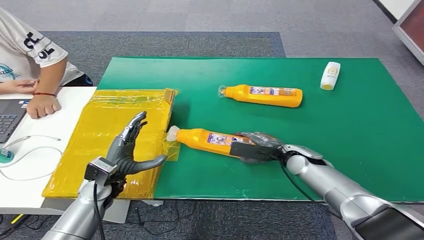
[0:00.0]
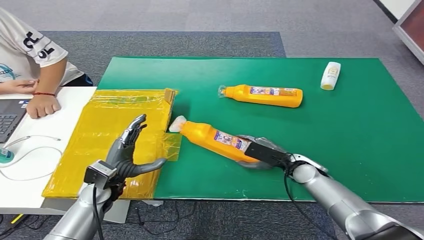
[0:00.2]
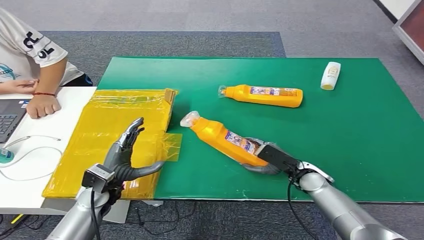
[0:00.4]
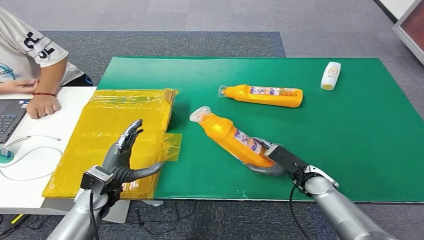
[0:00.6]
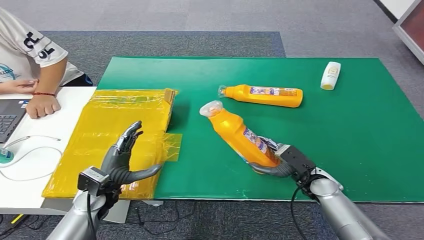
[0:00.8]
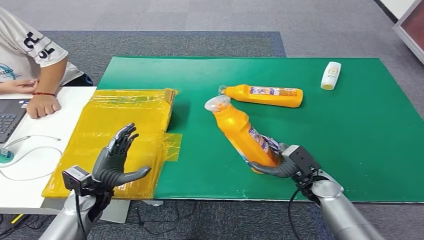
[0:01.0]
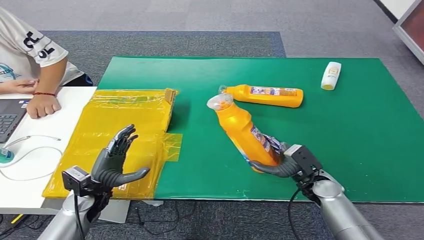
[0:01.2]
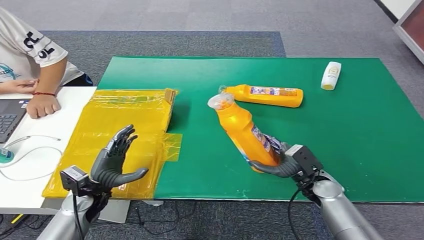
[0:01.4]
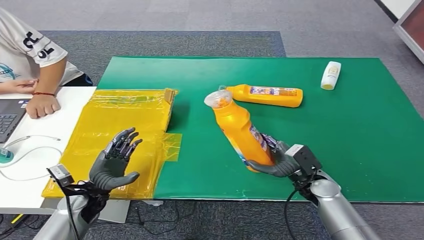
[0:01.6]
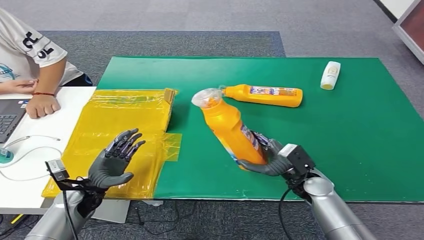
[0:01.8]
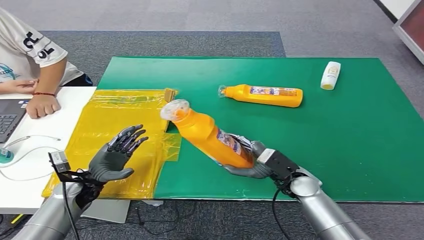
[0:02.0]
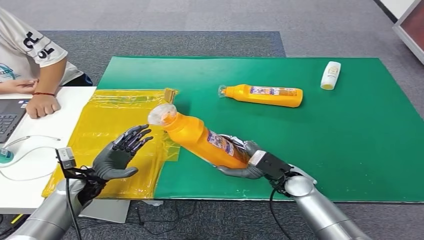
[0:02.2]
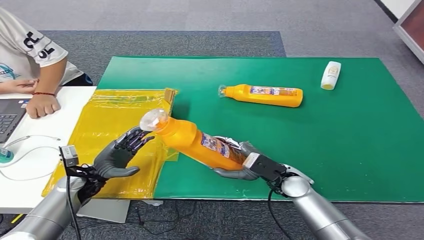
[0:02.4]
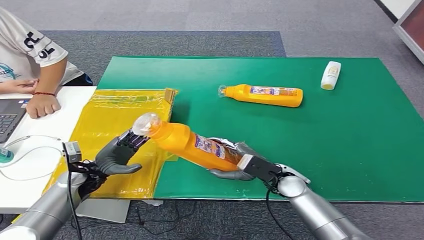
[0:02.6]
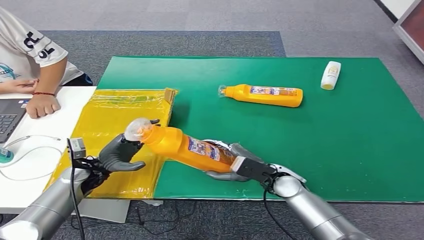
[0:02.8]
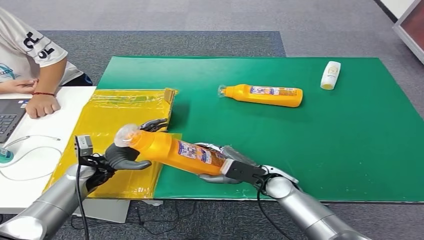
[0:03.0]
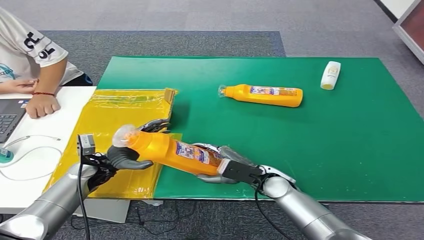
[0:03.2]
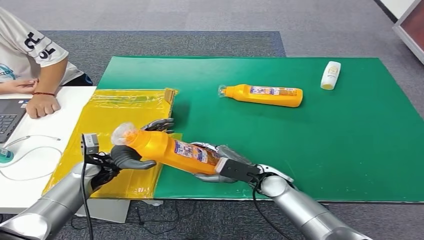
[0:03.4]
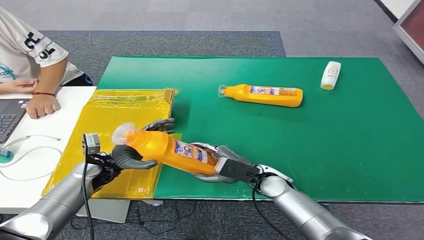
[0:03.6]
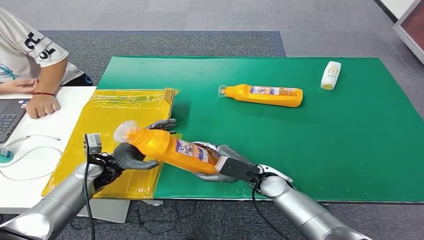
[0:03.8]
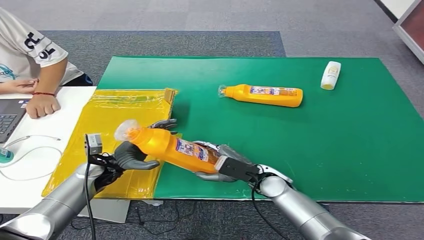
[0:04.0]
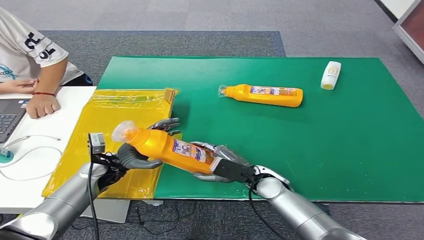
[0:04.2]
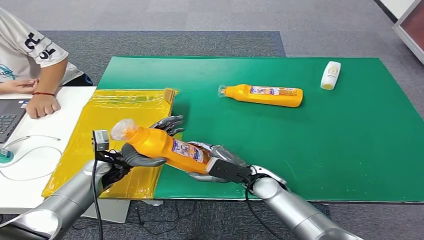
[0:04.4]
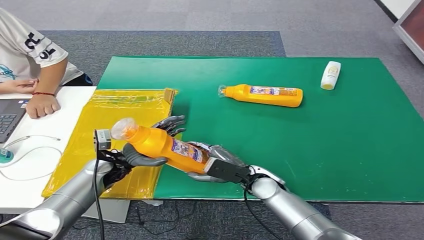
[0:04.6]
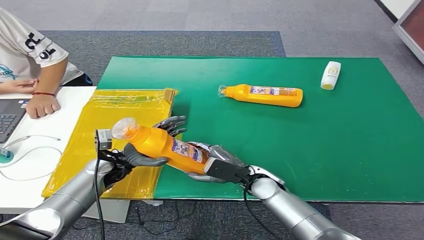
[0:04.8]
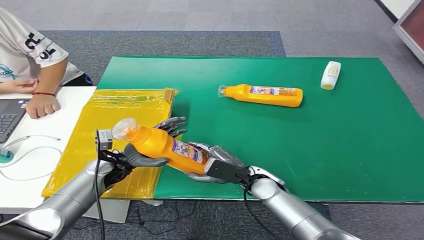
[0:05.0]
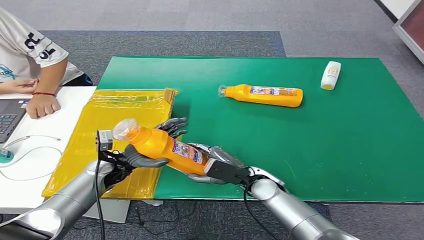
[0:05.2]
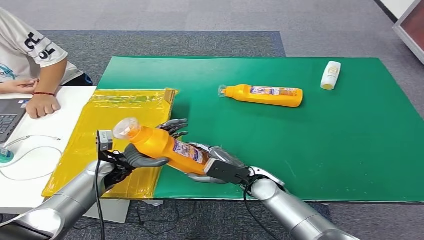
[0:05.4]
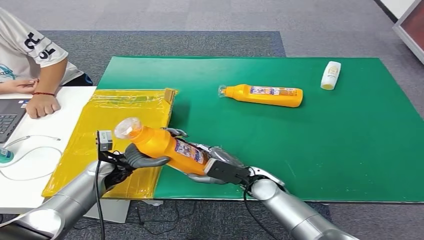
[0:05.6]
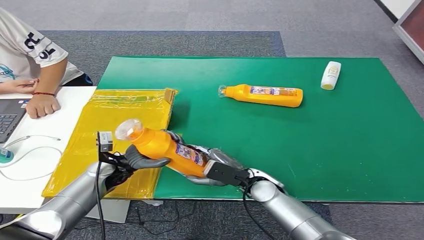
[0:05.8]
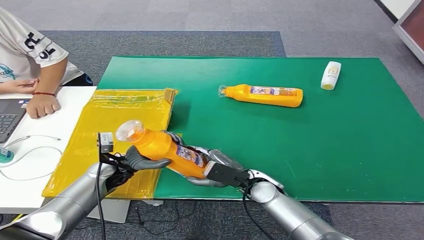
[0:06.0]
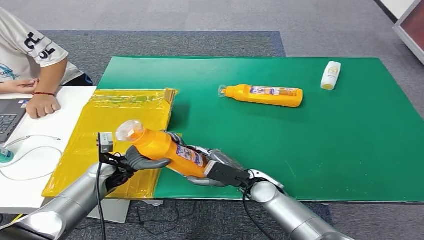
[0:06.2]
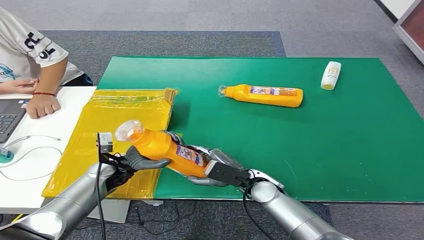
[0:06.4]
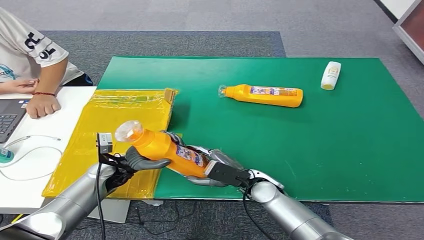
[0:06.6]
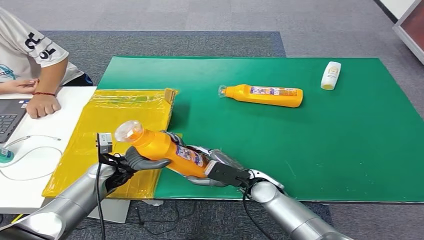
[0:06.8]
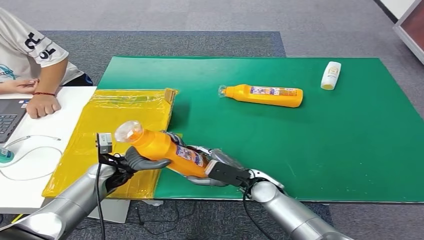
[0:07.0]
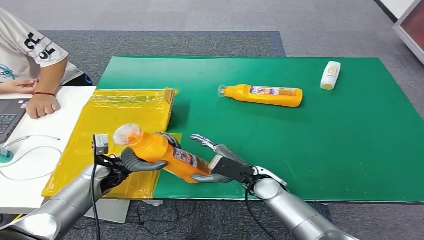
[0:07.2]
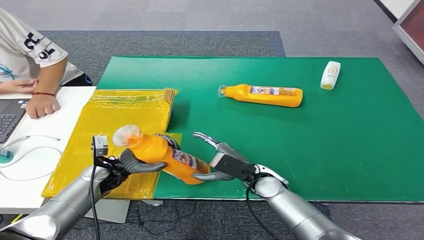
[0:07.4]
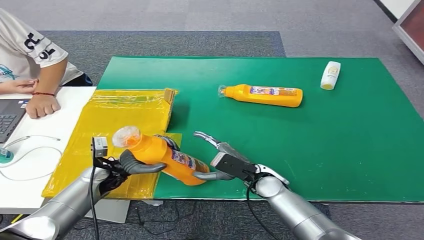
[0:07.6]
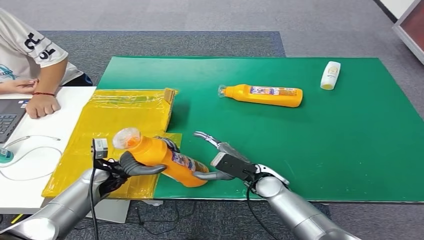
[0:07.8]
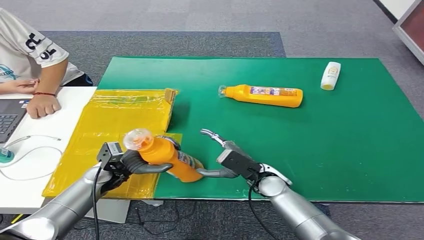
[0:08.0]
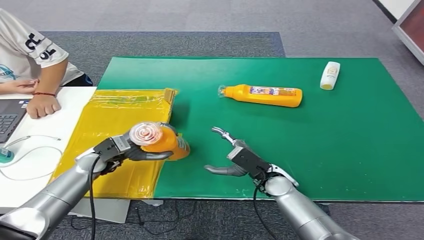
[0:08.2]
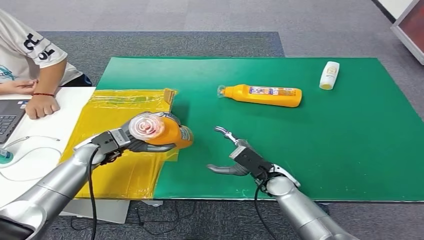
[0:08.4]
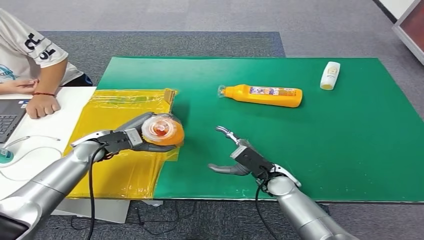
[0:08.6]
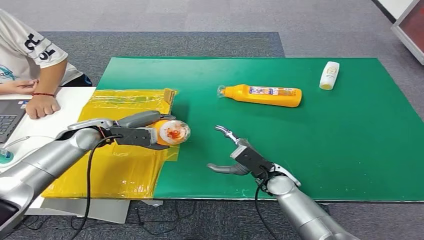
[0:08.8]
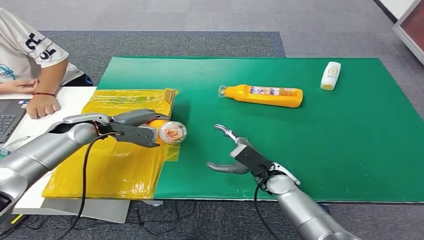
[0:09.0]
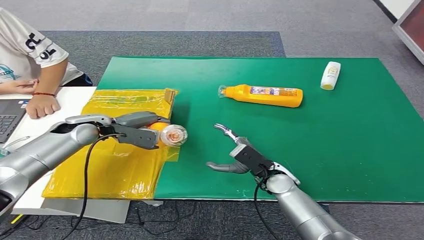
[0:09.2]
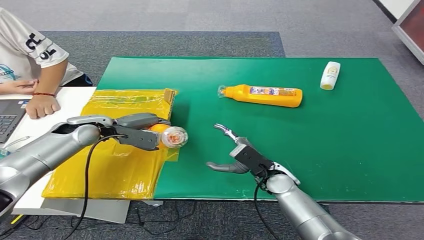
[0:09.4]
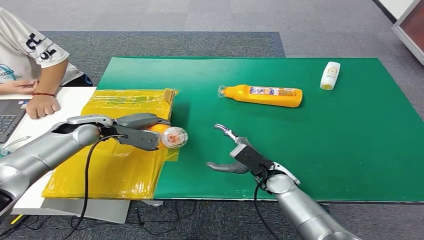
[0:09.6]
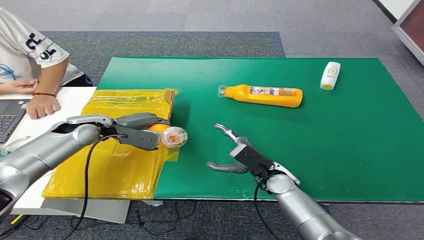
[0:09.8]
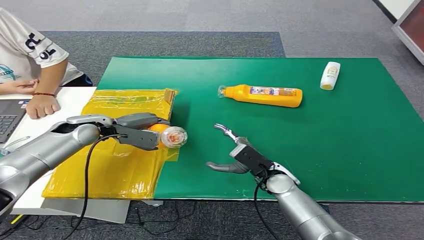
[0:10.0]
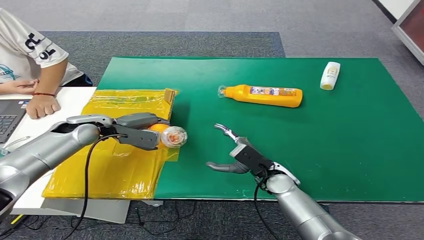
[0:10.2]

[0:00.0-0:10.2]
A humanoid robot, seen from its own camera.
Step, 0:00.0 to 0:02.2: Pick up the bottle from the table.
0:00.0 to 0:01.4: The left hand changes place by about 5 cm, while the right hand is displaced backward by some 10 cm.
0:01.4 to 0:03.0: The right hand travels to the left by roughly 10 cm; the left hand goes some 10 cm forward.
0:03.0 to 0:04.4: The hands stay close to where they were, moving slightly.
0:04.4 to 0:05.8: The two hands keep their place.
0:05.8 to 0:07.2: Both hands stay put.
0:07.2 to 0:08.8: The left hand is displaced upward and forward by some 15 cm.
0:08.8 to 0:10.2: The hands move only a little.

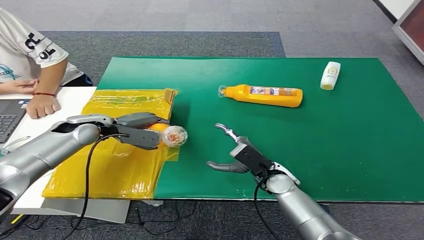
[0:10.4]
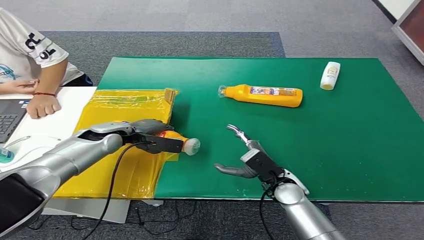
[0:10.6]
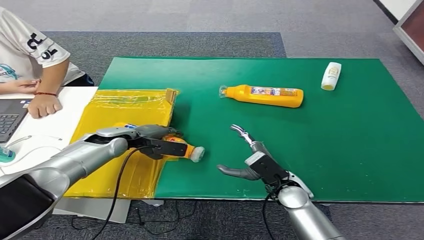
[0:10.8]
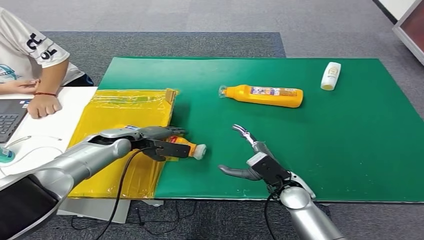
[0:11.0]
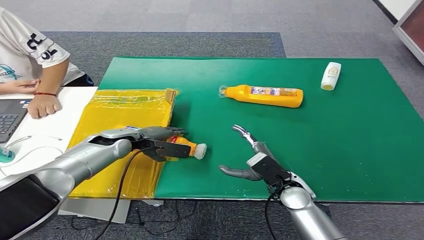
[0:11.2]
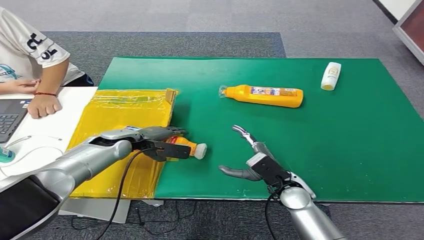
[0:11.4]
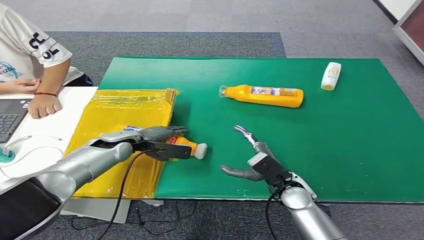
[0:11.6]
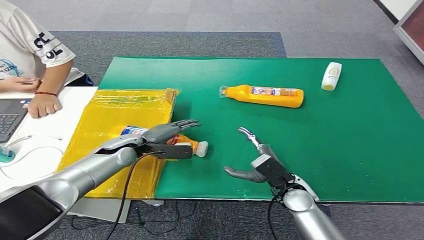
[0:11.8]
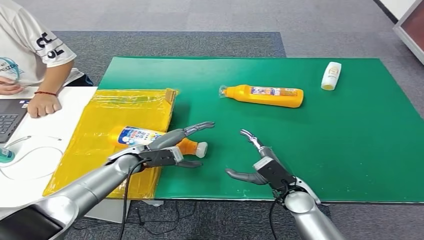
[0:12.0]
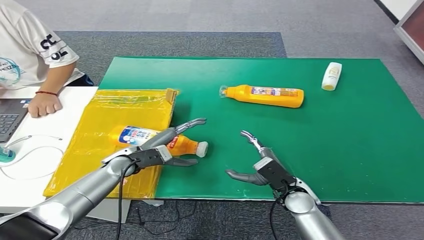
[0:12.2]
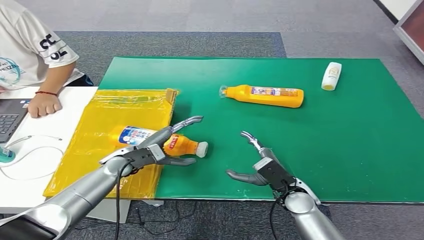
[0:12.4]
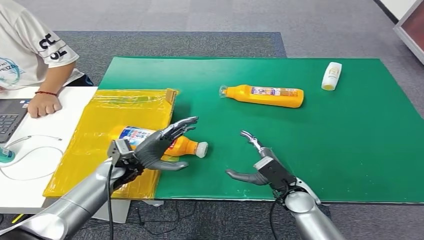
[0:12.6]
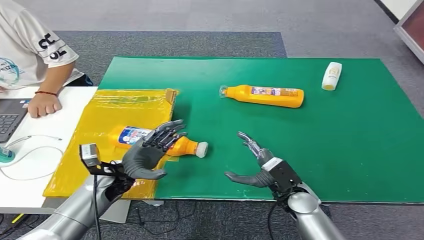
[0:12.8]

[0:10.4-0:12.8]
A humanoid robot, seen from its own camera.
Step, 0:10.4 to 0:12.6: Turn the bottle to the front side.
0:10.4 to 0:11.6: The left hand shifts approximately 10 cm downward and to the right.
0:11.6 to 0:12.8: The left hand is displaced backward by some 10 cm.
